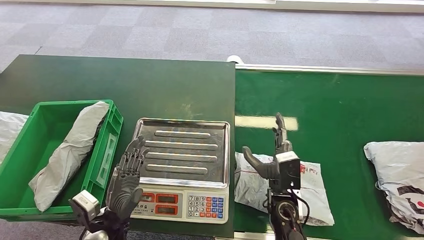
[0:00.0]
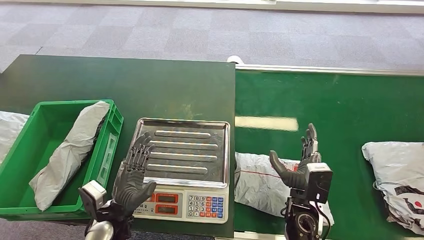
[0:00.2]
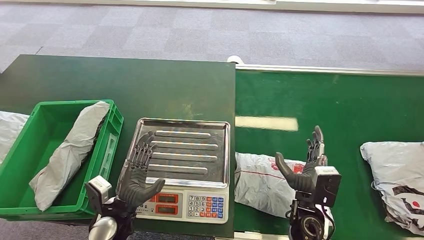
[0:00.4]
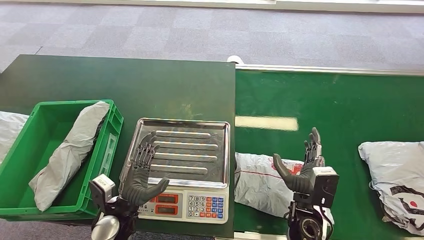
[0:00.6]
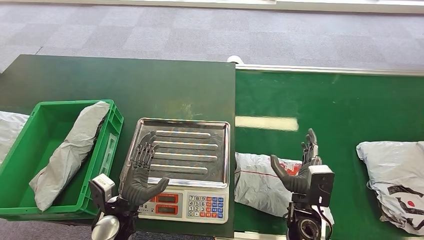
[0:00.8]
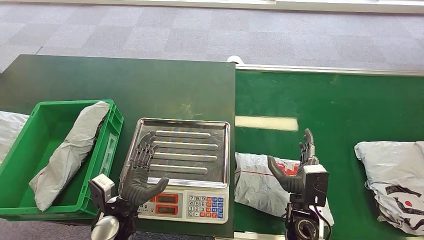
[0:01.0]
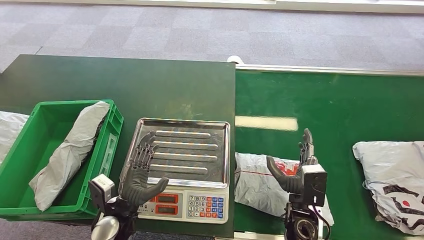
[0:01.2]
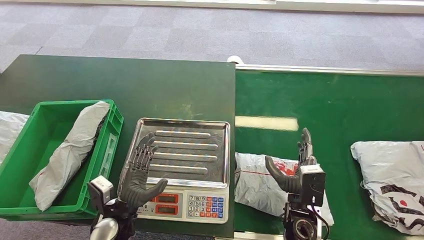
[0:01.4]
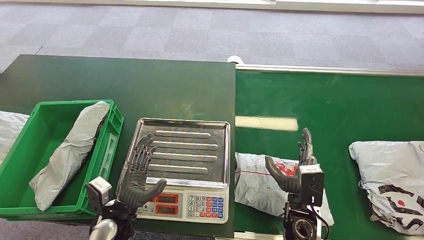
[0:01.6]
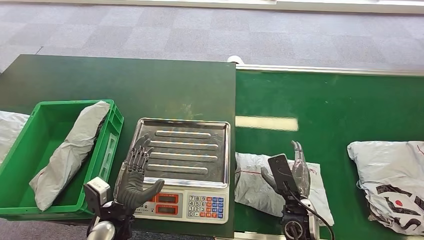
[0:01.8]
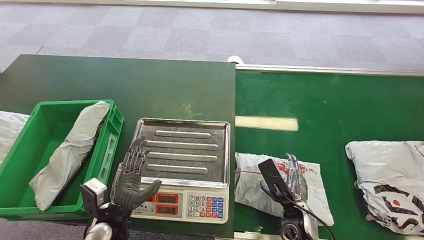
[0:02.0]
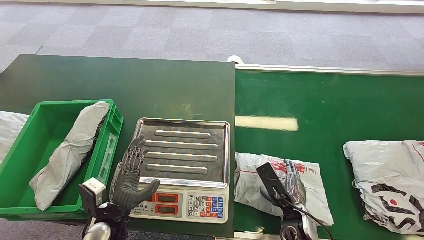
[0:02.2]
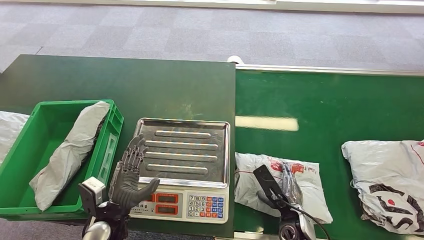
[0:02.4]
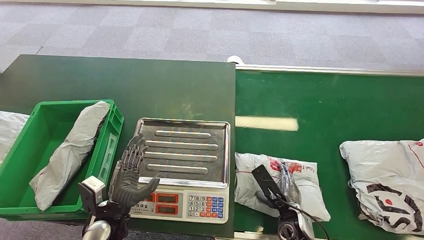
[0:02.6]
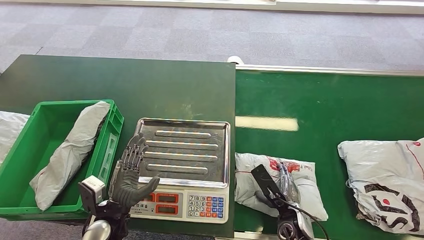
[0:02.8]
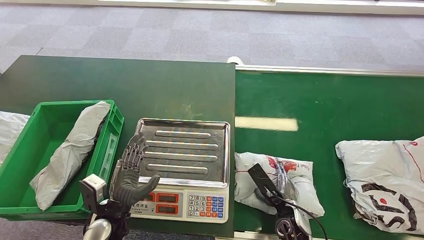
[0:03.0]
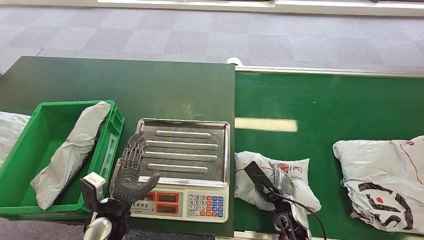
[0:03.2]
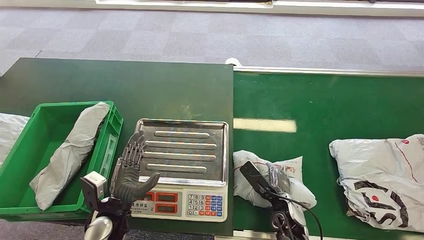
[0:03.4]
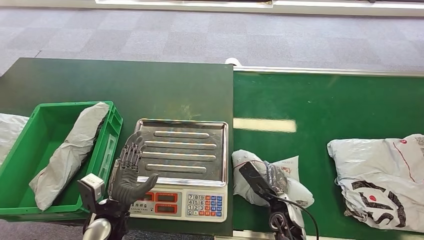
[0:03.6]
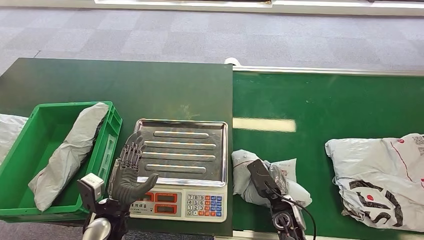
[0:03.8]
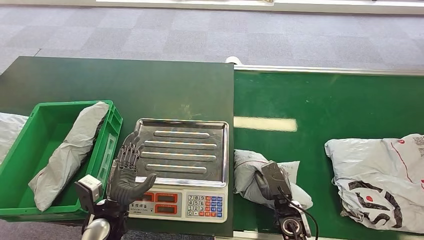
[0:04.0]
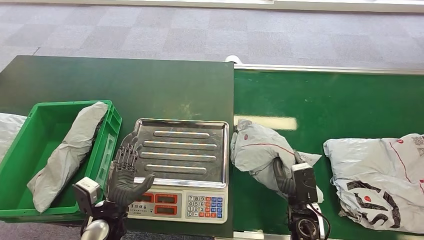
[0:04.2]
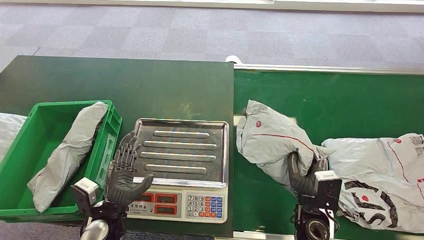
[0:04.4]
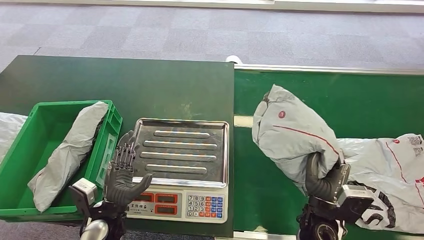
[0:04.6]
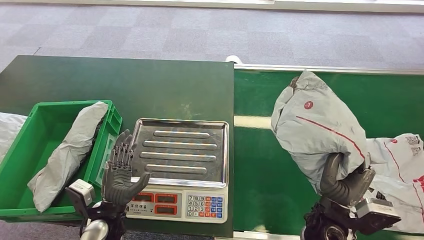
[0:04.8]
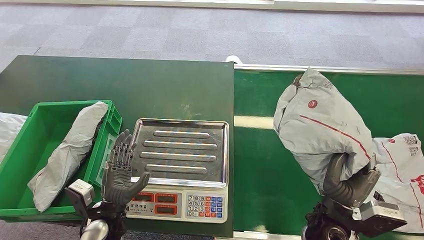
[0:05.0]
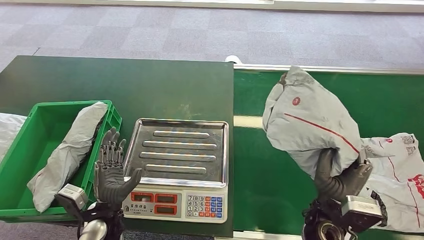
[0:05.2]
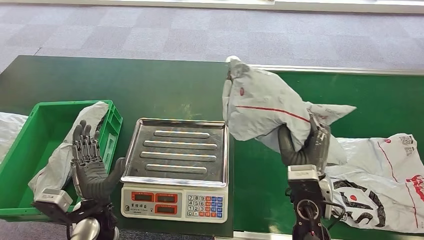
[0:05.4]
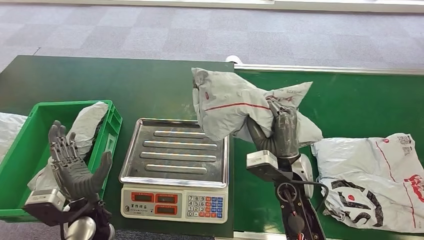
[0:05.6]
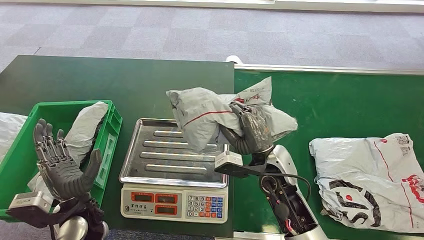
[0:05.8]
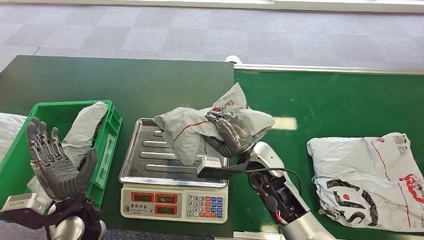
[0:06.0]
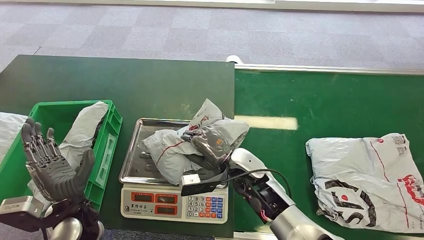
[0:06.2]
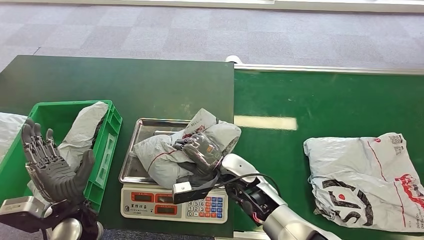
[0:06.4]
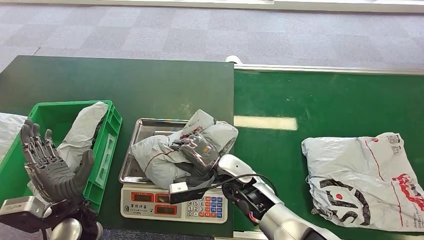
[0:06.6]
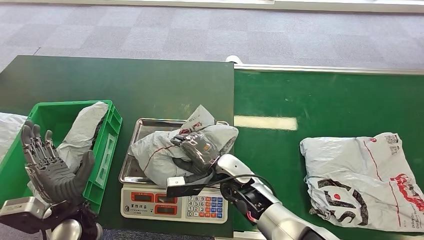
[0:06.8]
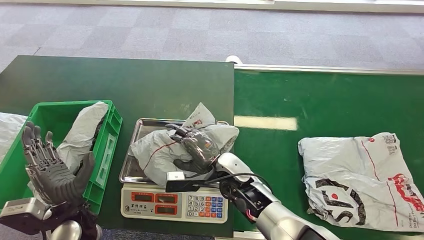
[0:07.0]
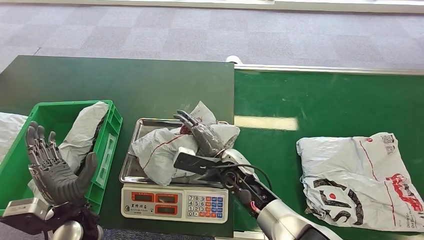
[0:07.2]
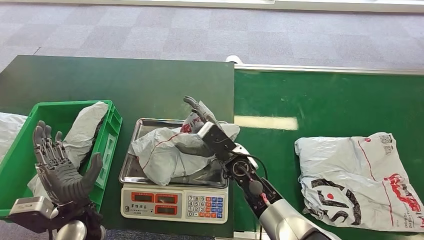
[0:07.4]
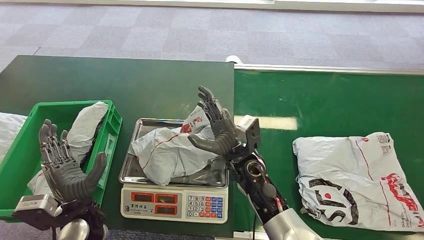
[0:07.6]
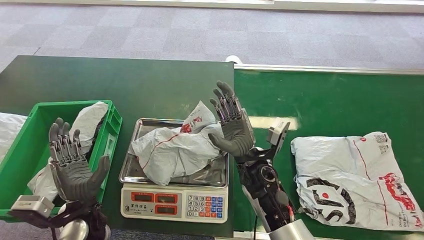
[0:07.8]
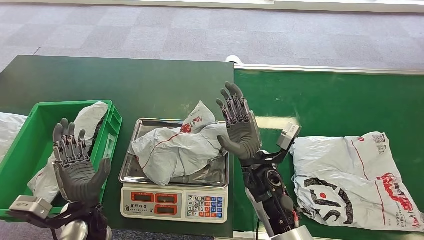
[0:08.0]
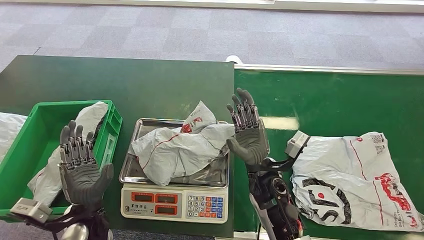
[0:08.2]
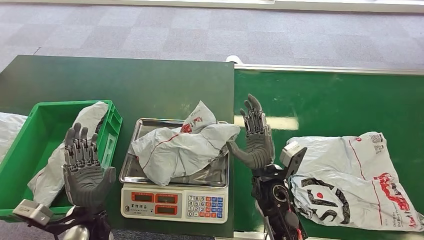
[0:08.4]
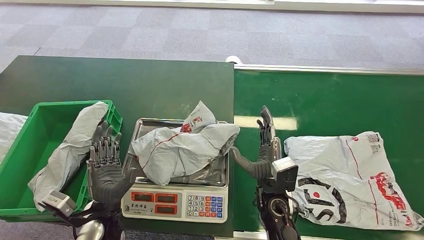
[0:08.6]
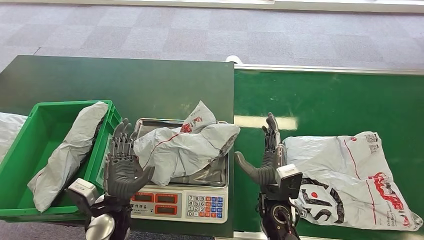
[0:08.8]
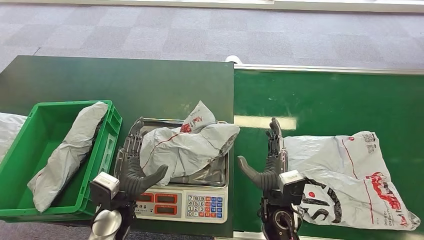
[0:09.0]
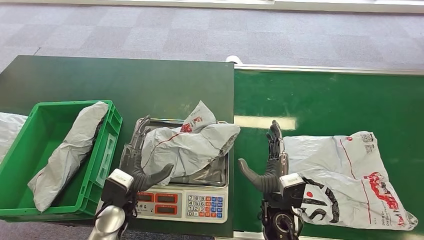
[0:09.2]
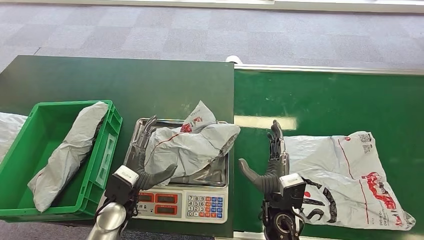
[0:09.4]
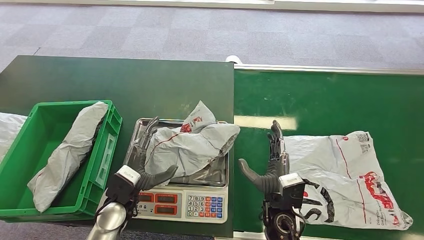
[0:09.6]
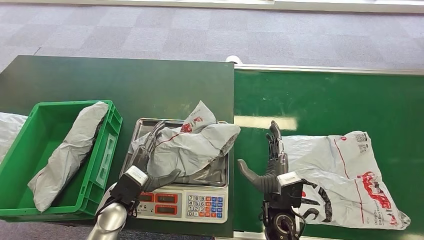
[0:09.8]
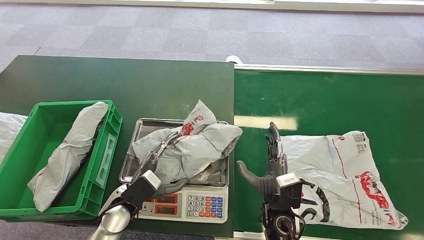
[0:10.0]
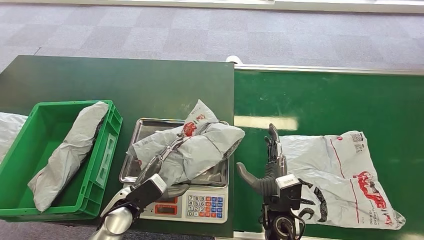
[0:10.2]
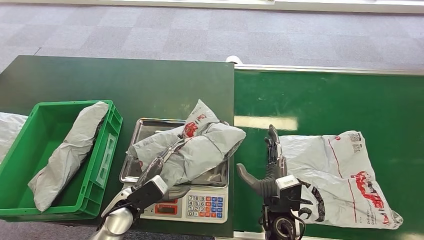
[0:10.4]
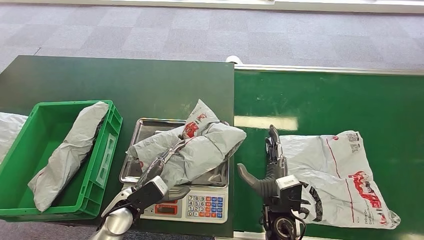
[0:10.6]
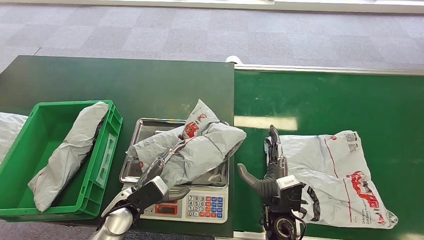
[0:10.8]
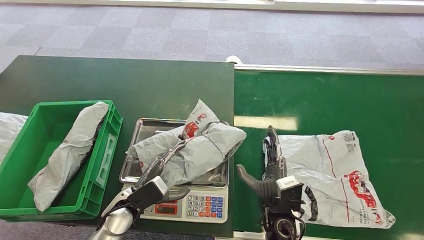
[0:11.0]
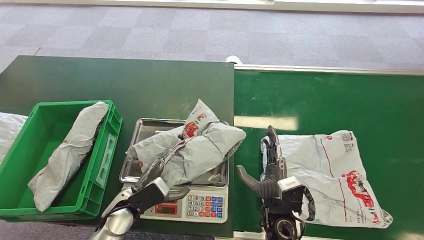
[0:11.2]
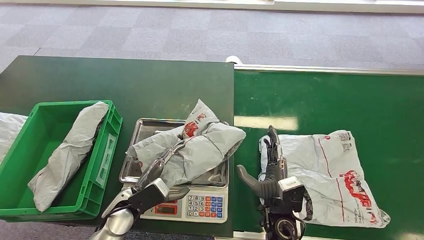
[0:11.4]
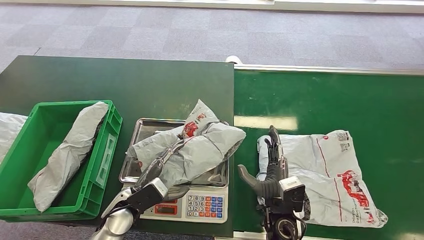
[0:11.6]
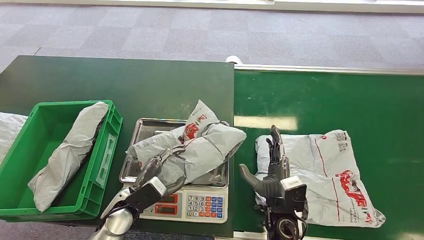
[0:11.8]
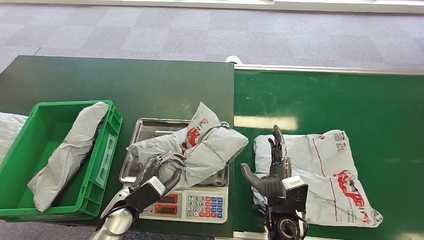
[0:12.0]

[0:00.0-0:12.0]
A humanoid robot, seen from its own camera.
Step, 0:00.0 to 0:04.6: Pick up the package from the conveyor belt.
Step, 0:04.8 to 0:08.2: Place the package onto the inbound machine.
0:00.0 to 0:01.6: The hands stay close to where they were, moving slightly.
0:01.6 to 0:03.0: The right hand goes roughly 5 cm downward.
0:07.6 to 0:09.0: The left hand goes about 5 cm to the right. Meanwhile the right hand moves backward, to the right and downward, approximately 10 cm.
0:10.4 to 0:12.0: Both hands stay about where they are.

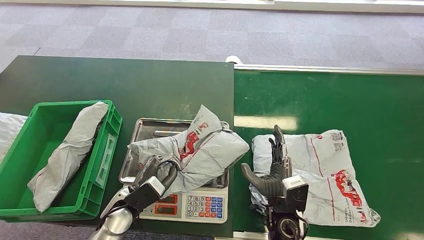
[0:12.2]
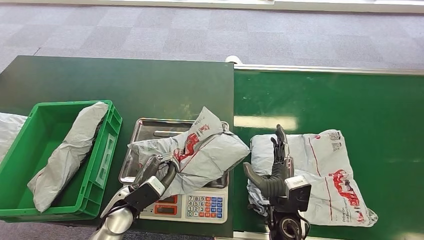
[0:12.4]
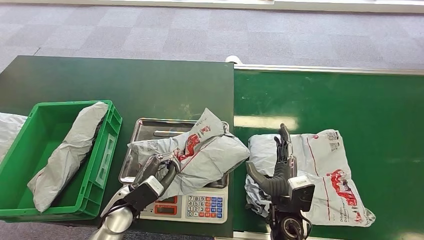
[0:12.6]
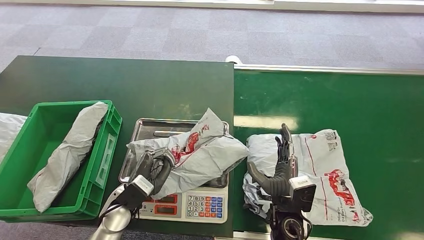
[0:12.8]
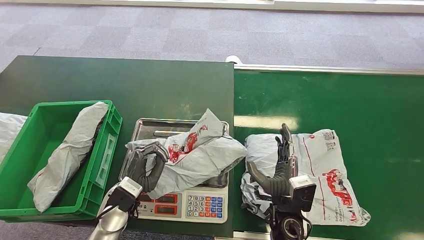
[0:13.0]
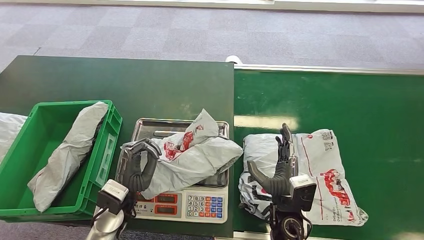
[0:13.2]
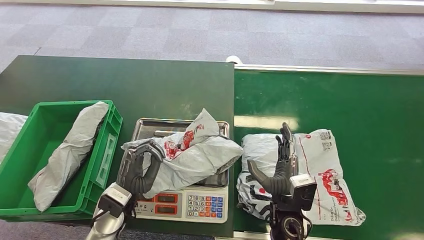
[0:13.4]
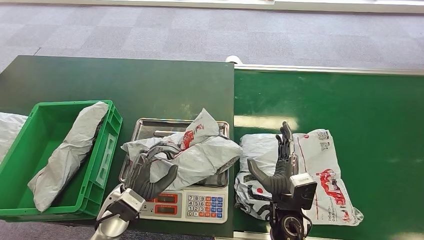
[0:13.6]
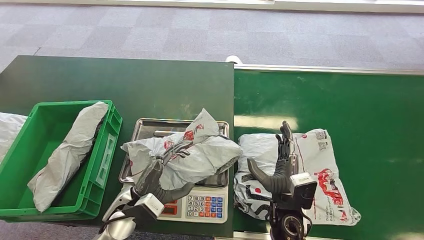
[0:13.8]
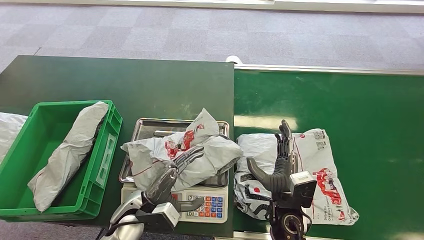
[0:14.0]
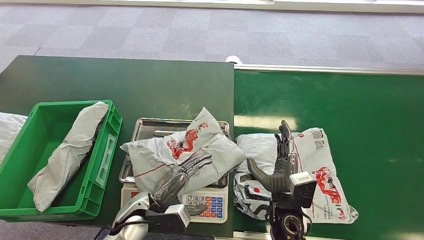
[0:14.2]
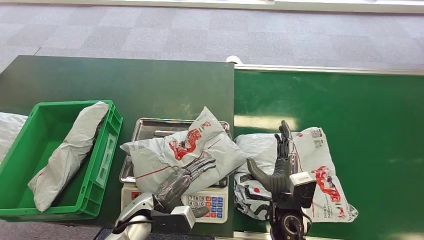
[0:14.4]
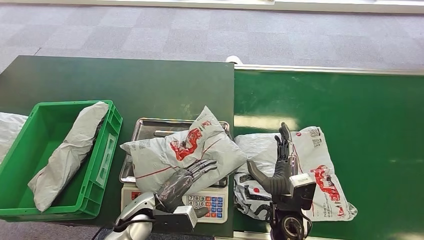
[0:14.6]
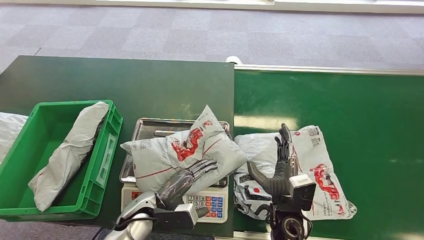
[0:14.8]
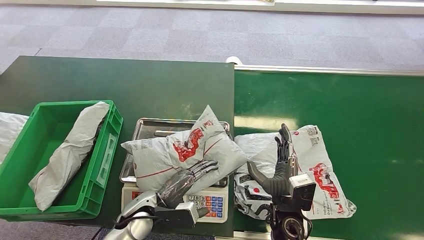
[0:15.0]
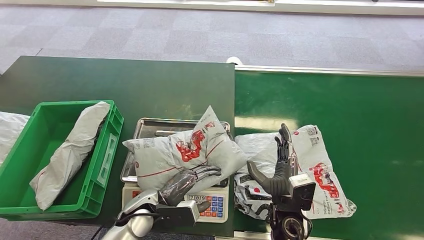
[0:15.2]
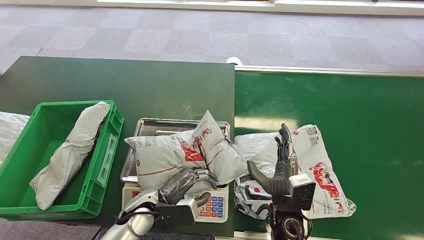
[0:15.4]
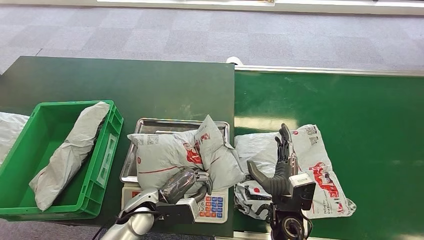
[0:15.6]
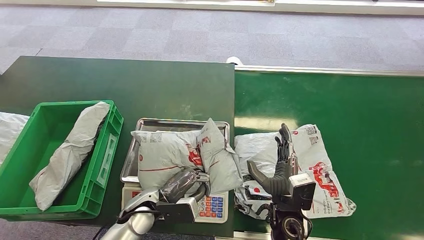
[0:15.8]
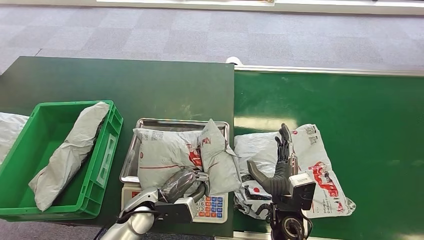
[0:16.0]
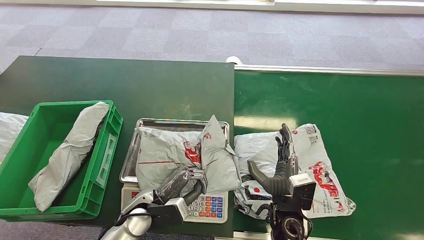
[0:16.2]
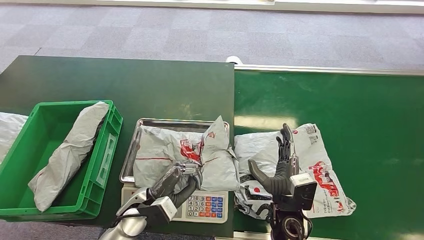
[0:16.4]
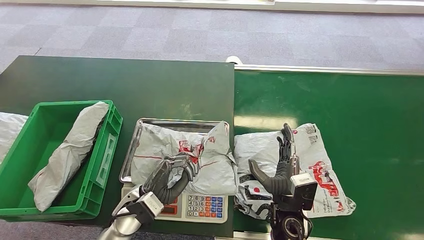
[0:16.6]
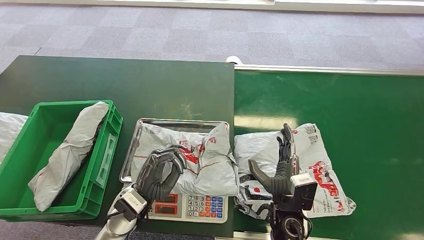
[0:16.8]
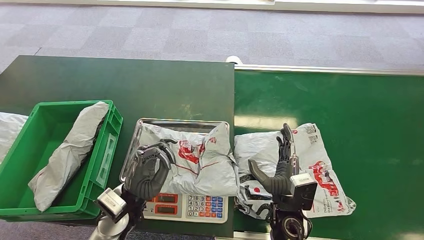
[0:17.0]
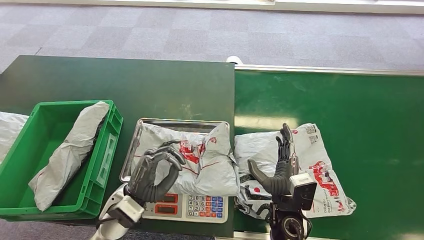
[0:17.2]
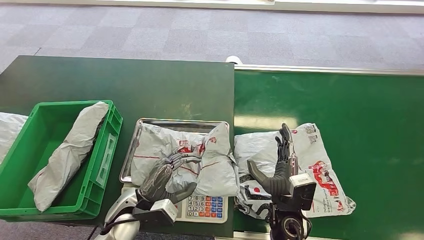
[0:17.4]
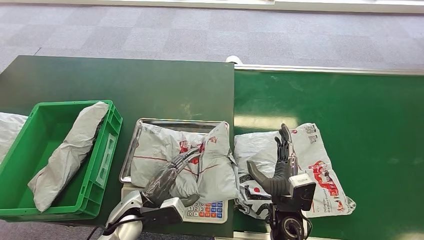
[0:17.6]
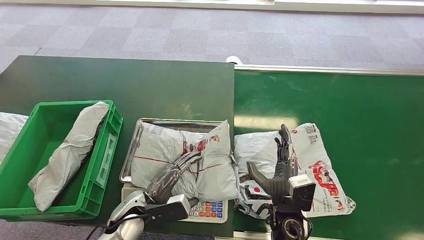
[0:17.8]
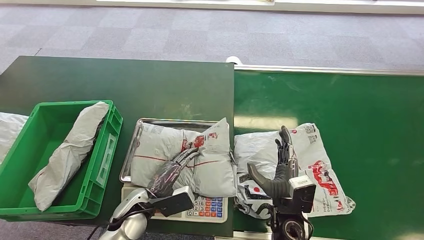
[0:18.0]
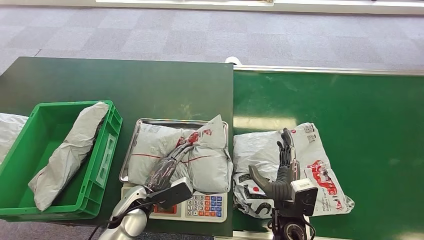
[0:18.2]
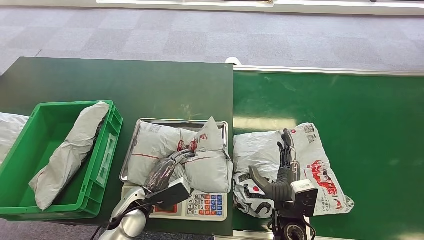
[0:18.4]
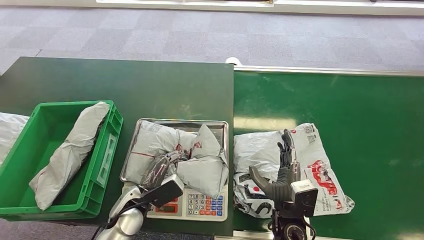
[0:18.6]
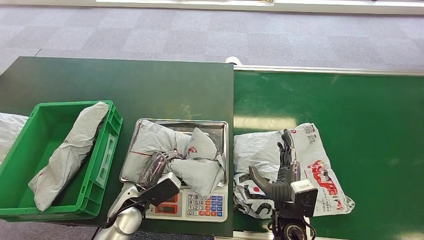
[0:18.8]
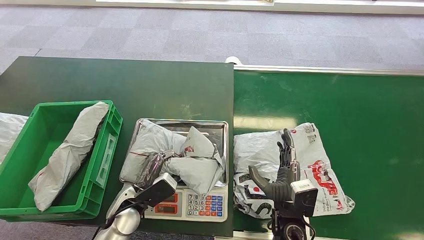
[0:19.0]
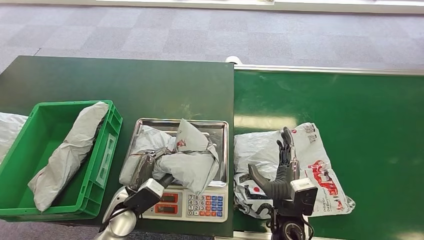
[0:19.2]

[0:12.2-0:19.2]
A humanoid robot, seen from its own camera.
0:13.6 to 0:15.0: The left hand changes place by about 5 cm.
